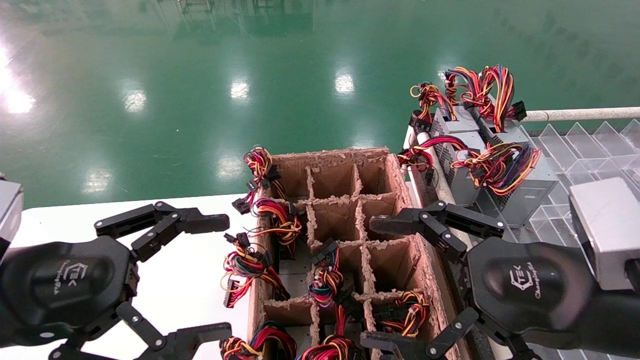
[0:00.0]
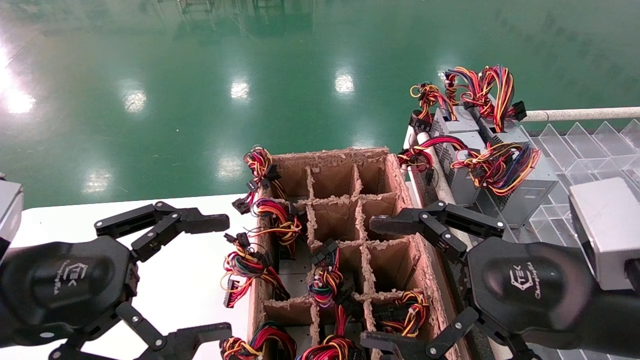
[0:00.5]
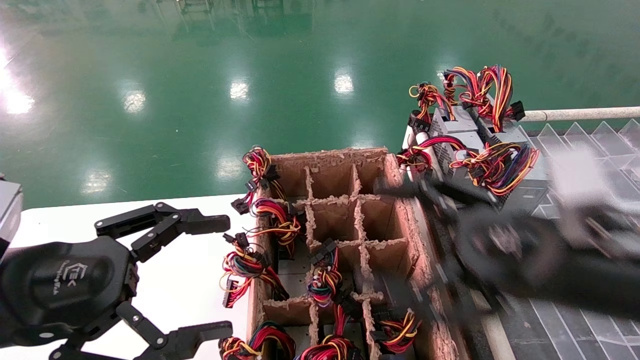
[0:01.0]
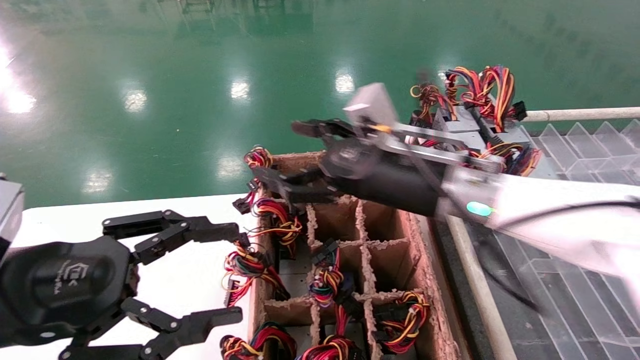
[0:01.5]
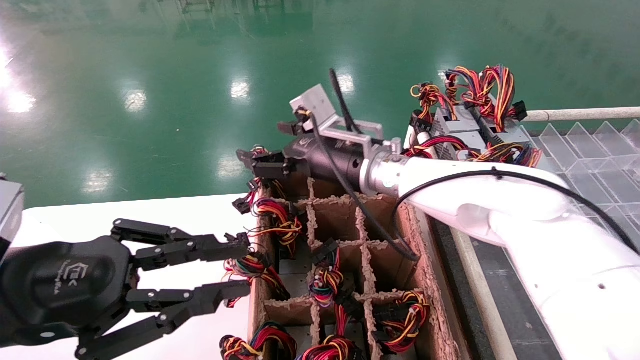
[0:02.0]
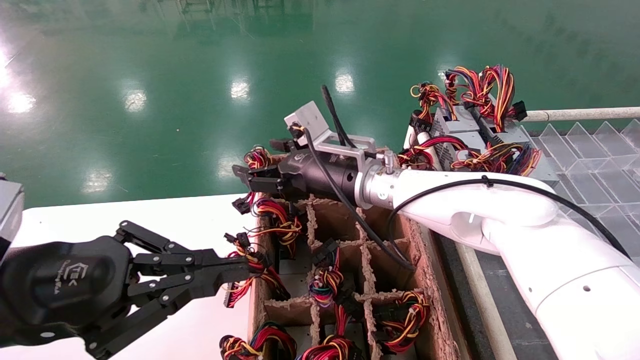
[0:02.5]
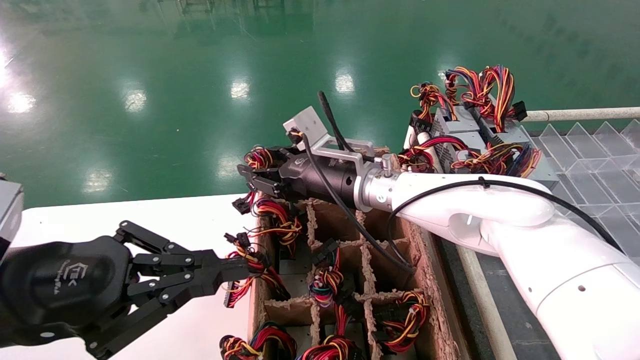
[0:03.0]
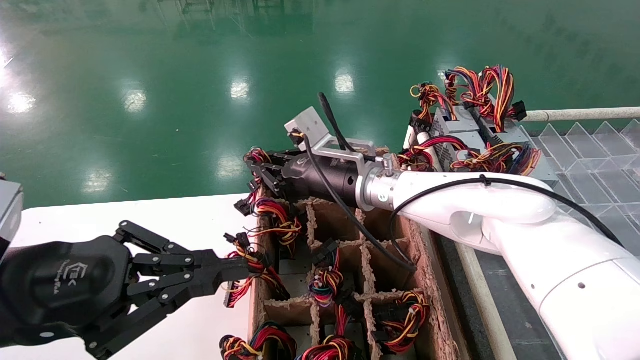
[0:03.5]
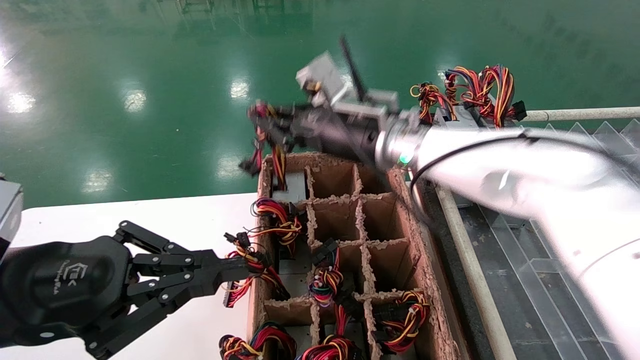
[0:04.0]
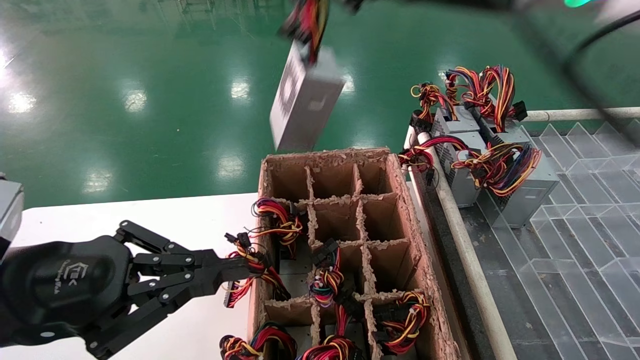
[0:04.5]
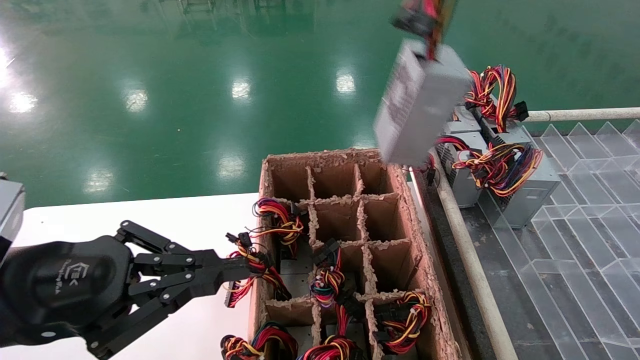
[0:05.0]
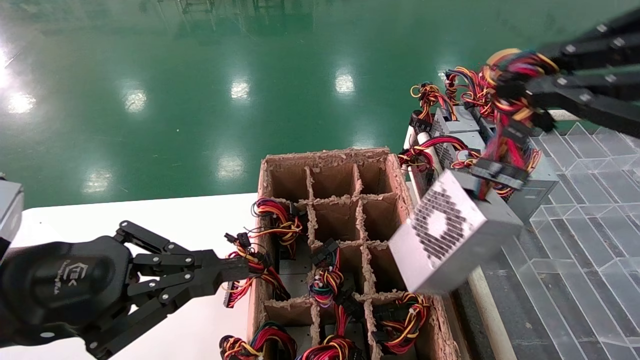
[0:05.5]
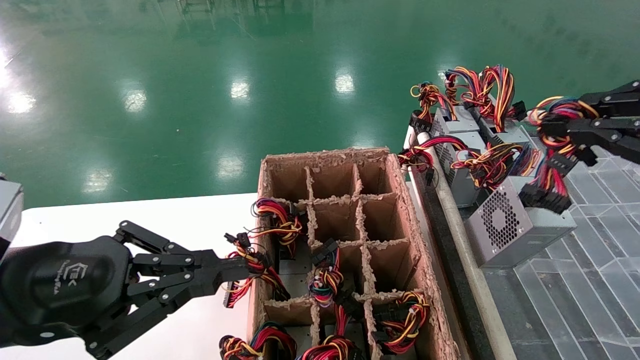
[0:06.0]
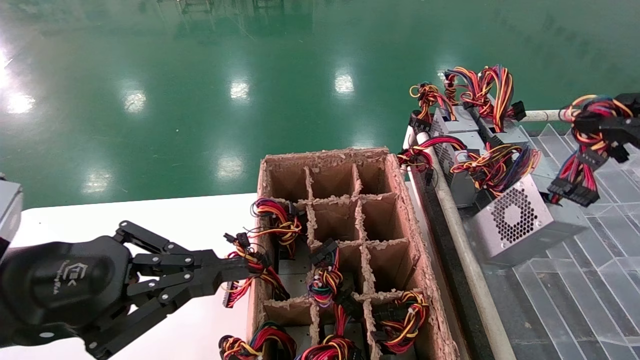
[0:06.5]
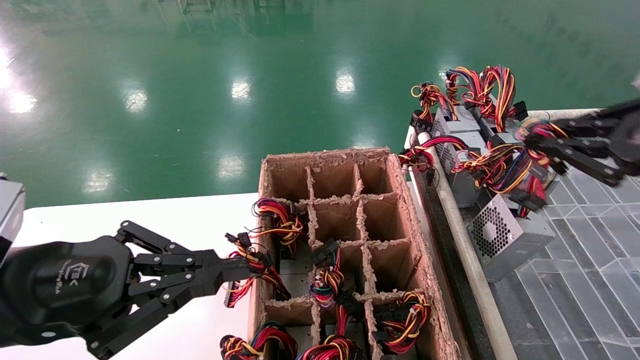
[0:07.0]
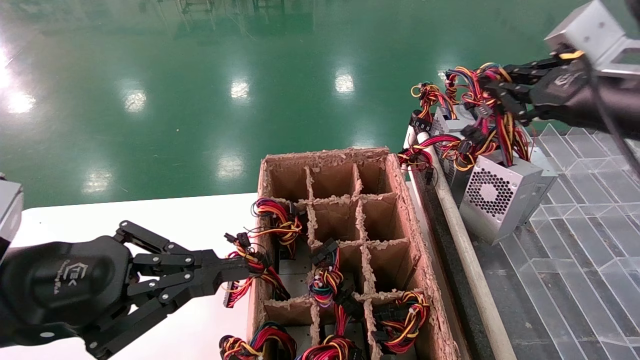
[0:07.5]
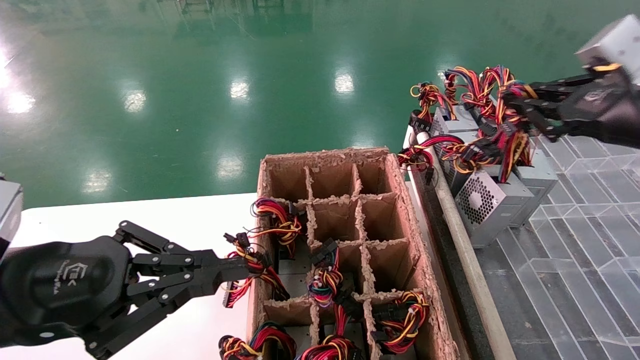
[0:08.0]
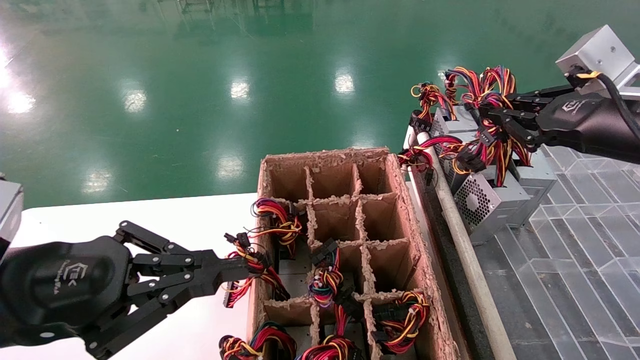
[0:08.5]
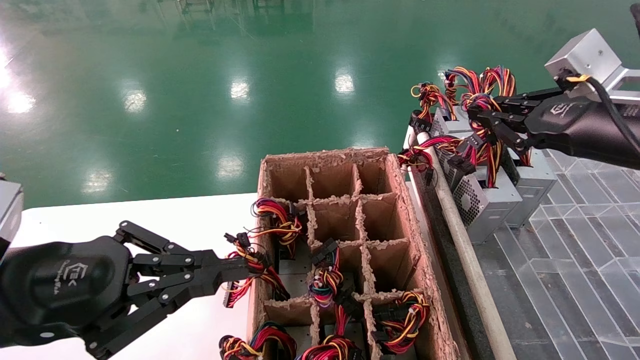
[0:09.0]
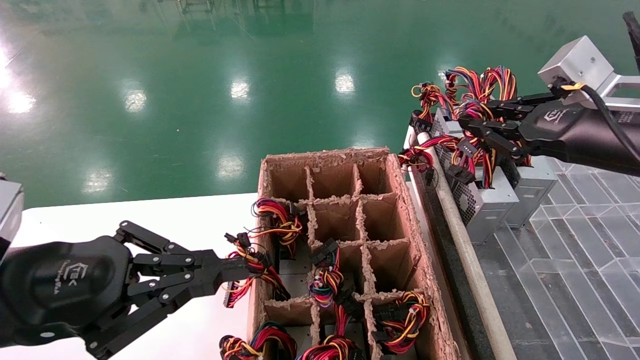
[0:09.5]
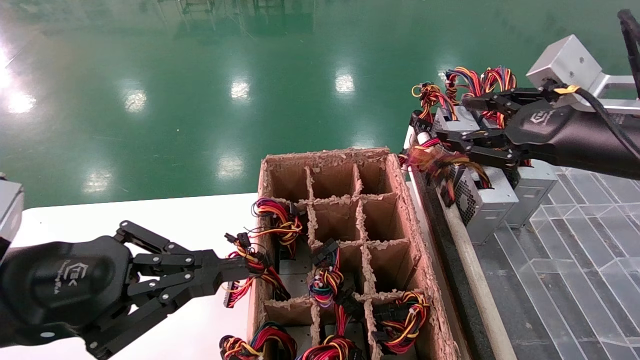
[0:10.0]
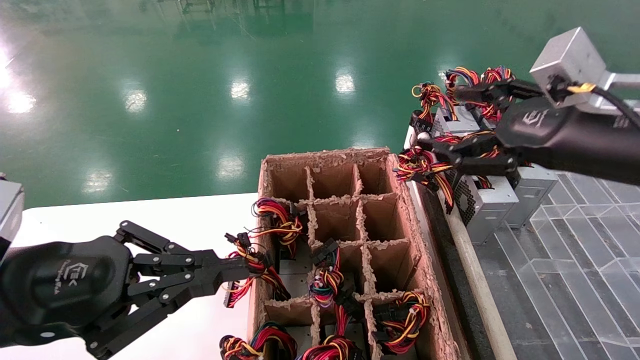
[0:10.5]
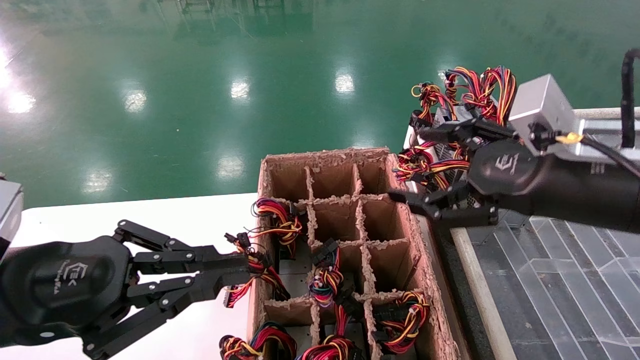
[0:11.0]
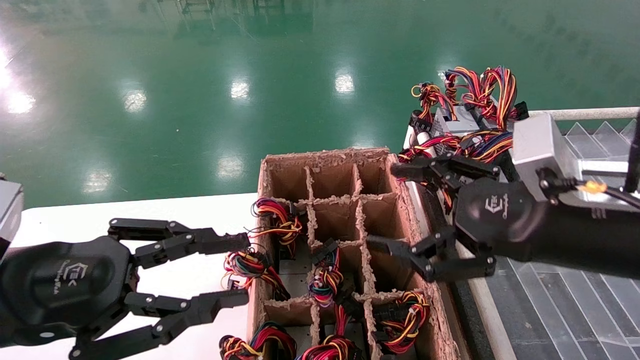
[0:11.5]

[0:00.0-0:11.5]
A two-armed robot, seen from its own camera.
Step, 0:01.5 to 0:03.5: Grab the main unit power supply from the containment box.
Step, 0:04.0 to 0:10.0: Place the main unit power supply in the designated area.
0:00.0 to 0:02.0: The right gripper shifts approximately 30 cm forward and to the left. Meanwhile the left gripper closes up.
0:02.0 to 0:04.0: The left gripper closes up; the right gripper is displaced upward by approximately 5 cm, and closes up.
0:04.0 to 0:06.0: The right gripper goes some 40 cm to the right and backward.
0:06.0 to 0:07.5: The right gripper goes some 15 cm forward.
0:07.5 to 0:09.5: There are only small adjustments of the grippers.
0:09.5 to 0:11.5: The right gripper is displaced to the left, downward and backward by about 10 cm, and opens.

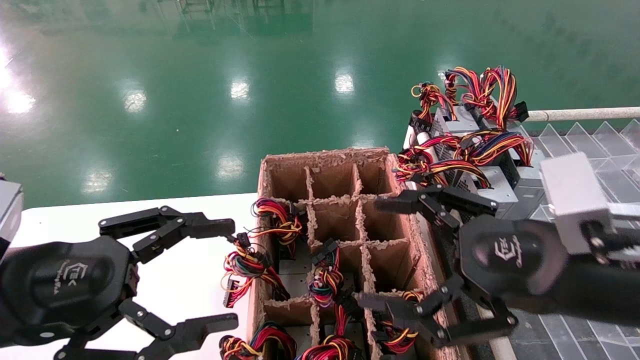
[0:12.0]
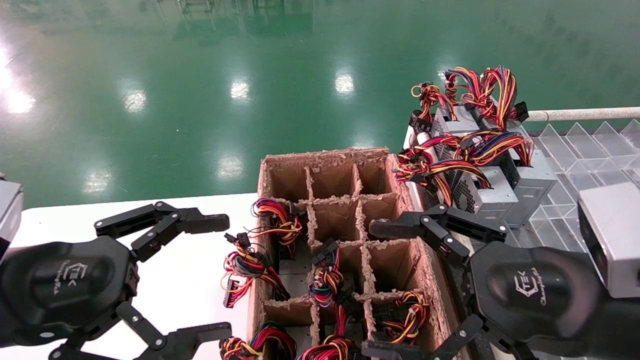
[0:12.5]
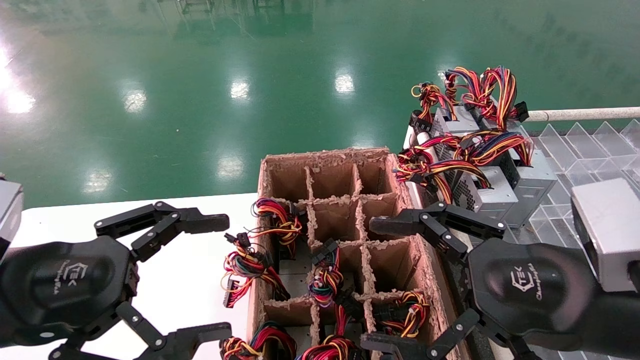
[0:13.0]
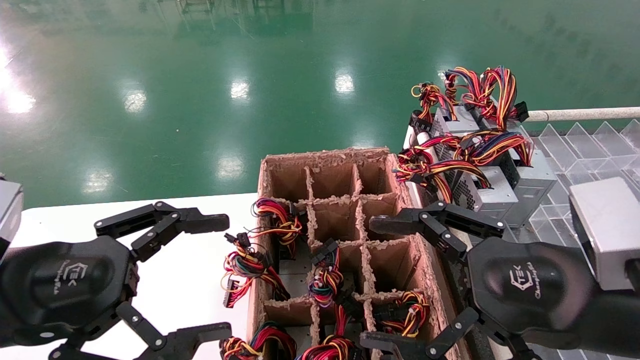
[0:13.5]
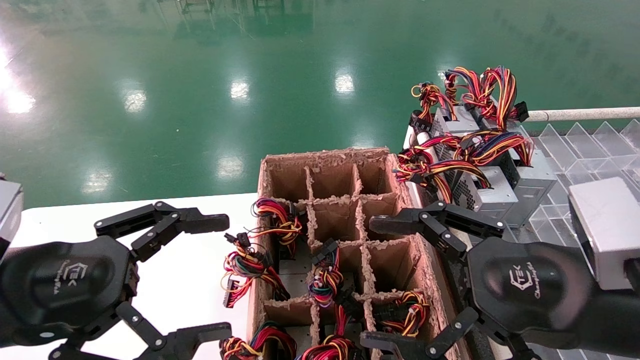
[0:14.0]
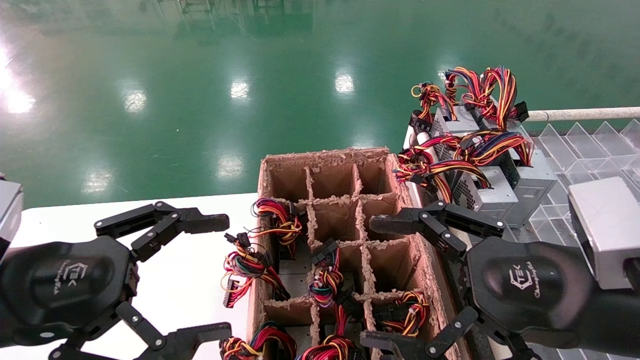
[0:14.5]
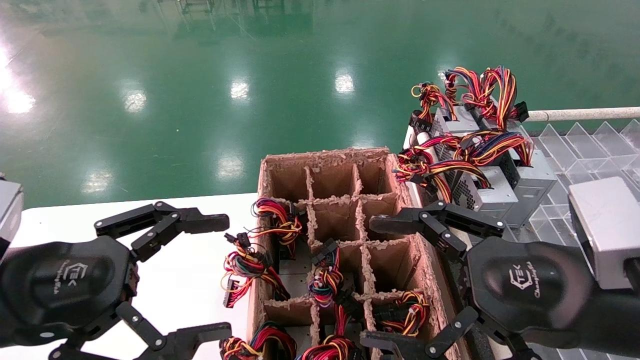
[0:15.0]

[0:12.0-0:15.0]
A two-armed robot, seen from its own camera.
0:12.0 to 0:13.5: The grippers move only a little.
0:13.5 to 0:15.0: Both grippers stay about where they are.
